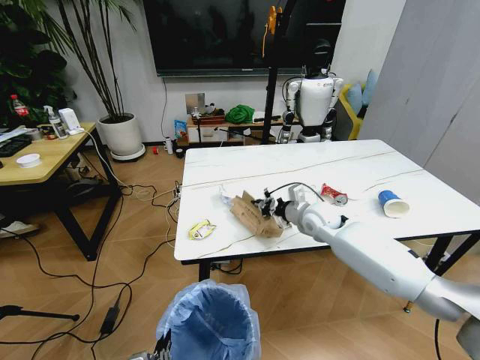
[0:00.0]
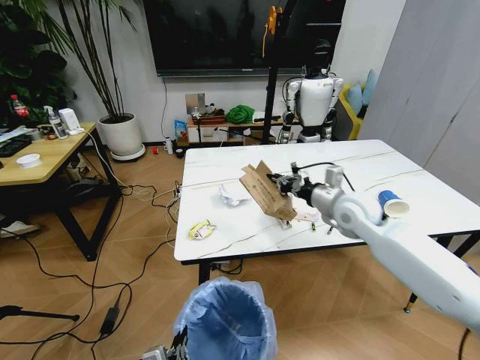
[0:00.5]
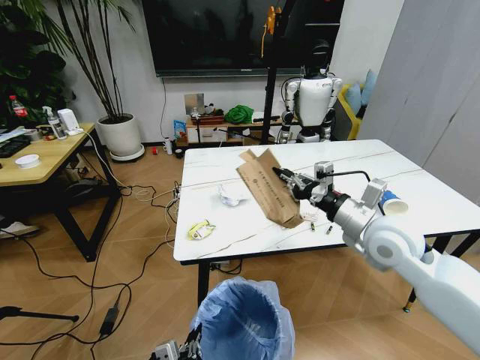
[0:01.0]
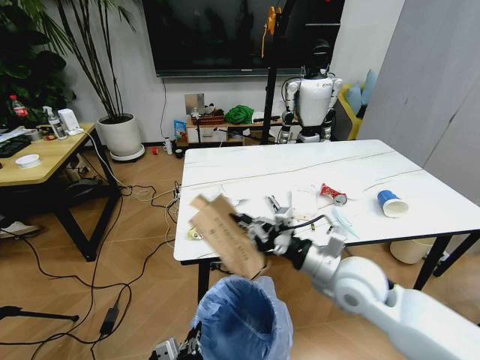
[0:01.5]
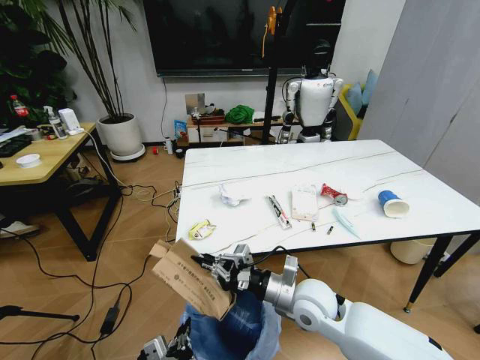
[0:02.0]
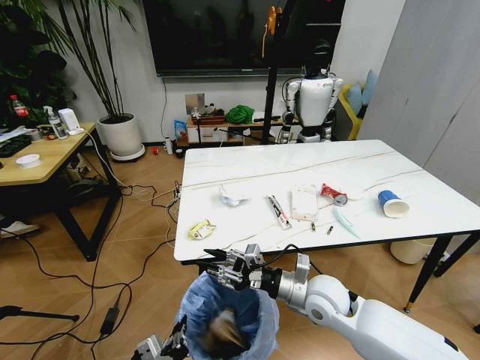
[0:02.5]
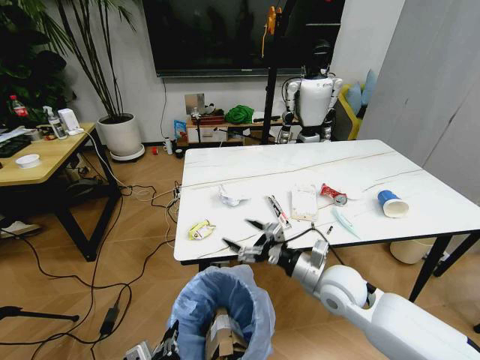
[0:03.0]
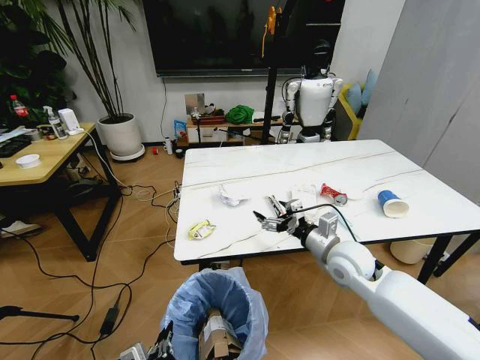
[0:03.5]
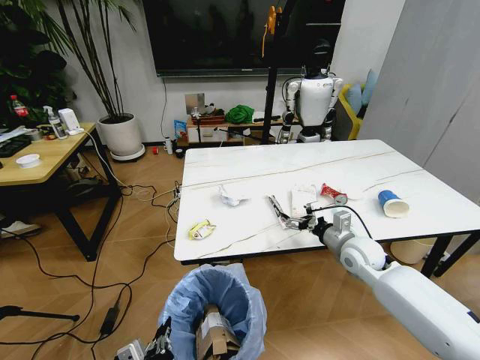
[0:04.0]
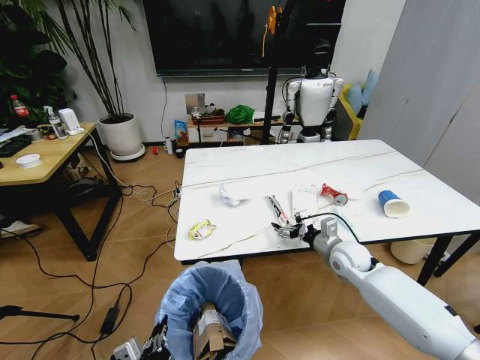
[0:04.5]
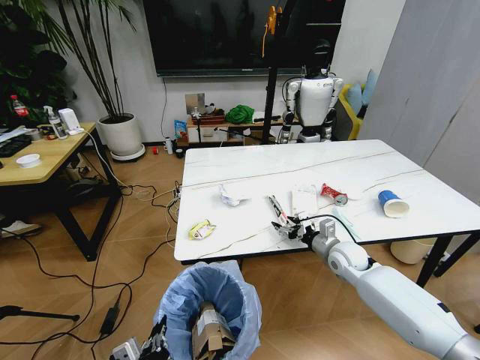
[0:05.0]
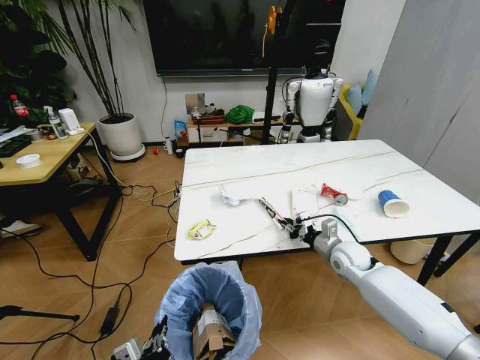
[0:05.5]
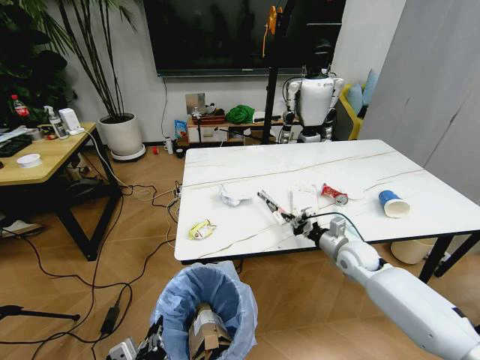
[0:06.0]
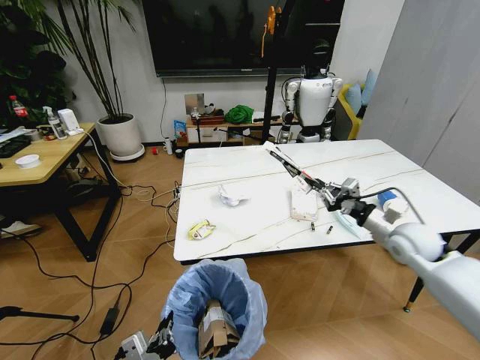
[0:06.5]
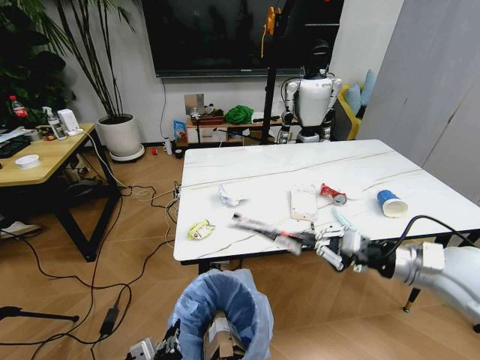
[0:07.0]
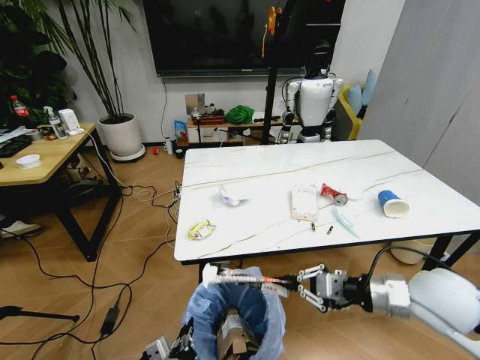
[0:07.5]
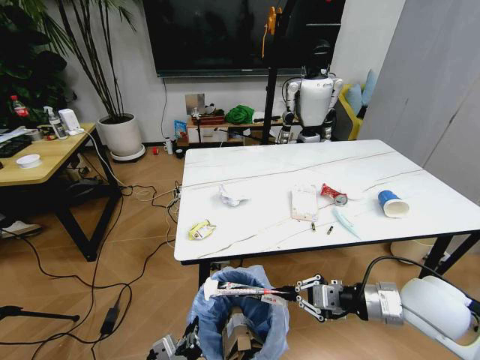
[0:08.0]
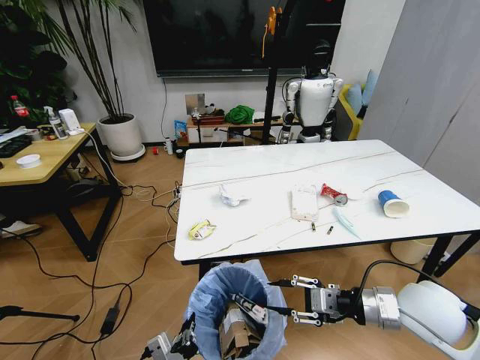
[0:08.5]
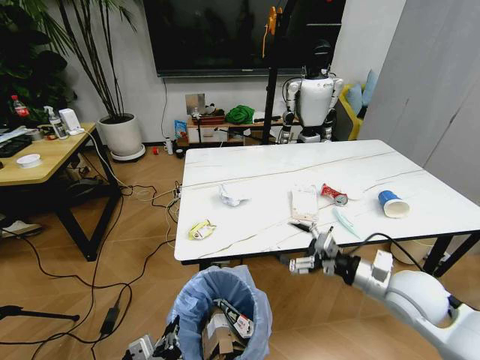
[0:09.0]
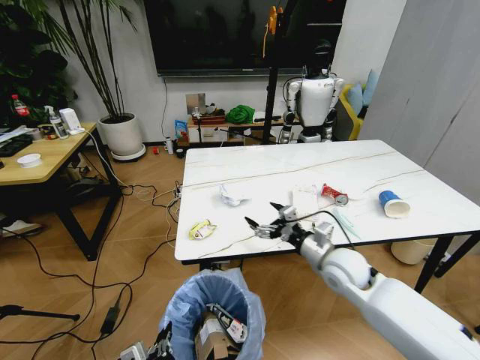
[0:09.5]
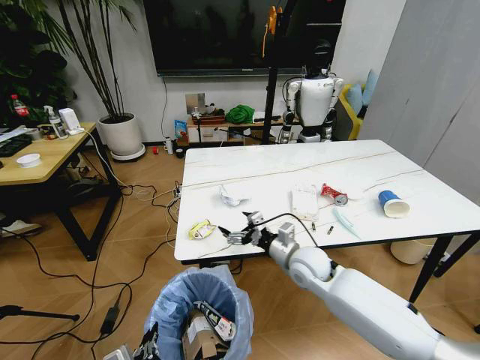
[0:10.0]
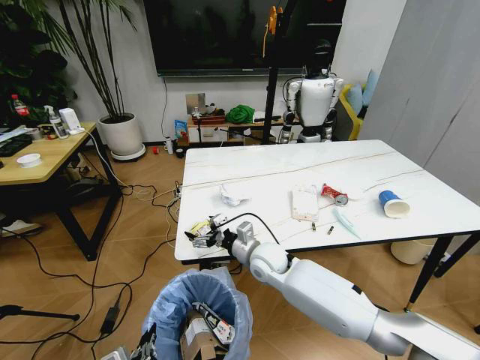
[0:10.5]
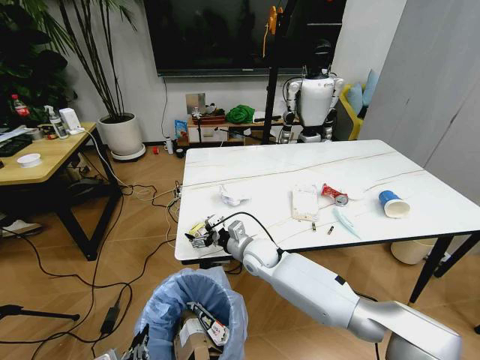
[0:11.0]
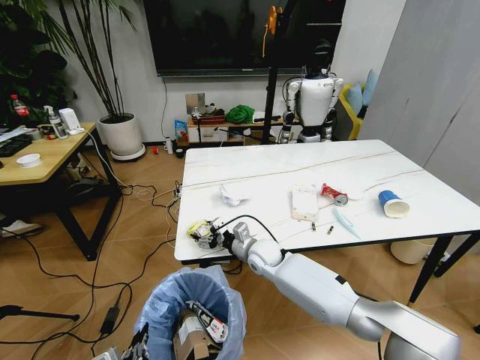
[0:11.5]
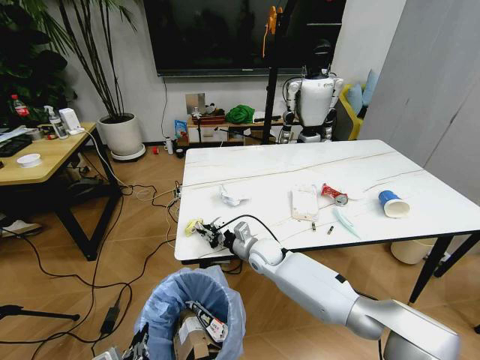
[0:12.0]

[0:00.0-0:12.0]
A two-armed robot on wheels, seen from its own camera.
Task of the whole recording: Pick up the trash bin and place the trash from the table into it.
0:00.0 to 0:02.0: The right gripper travels backward by approximately 20 cm.
0:02.0 to 0:04.0: The right gripper moves to the right and forward, approximately 20 cm, and opens up.
0:04.0 to 0:06.0: The right gripper closes up.
0:06.0 to 0:08.0: The left gripper moves roughly 5 cm. Meanwhile the right gripper travels backward and upward by about 20 cm.
0:08.0 to 0:10.0: The right gripper moves to the left, forward and downward, roughly 25 cm, and opens. The left gripper heads to the left, covering approximately 5 cm.
0:10.0 to 0:12.0: The right gripper is displaced to the left, forward and downward by approximately 10 cm, and closes.

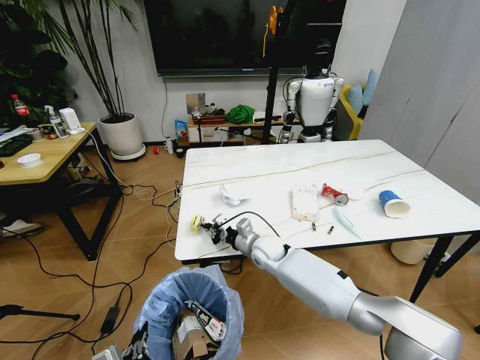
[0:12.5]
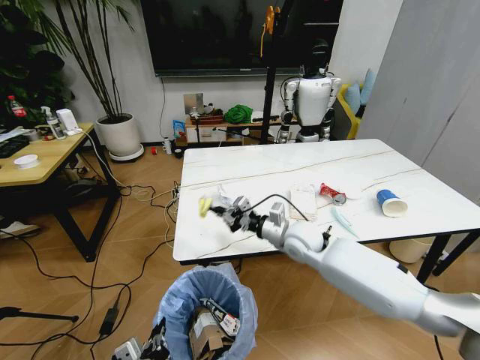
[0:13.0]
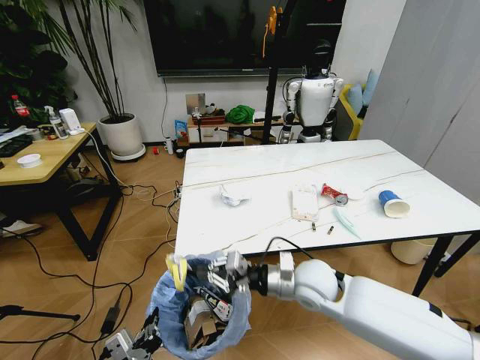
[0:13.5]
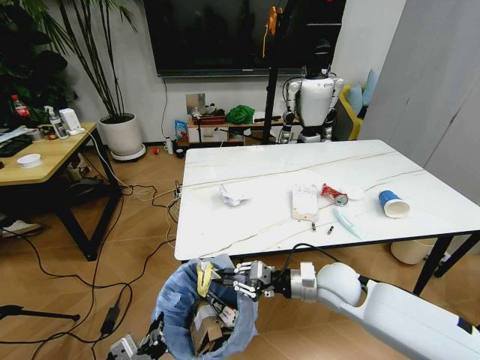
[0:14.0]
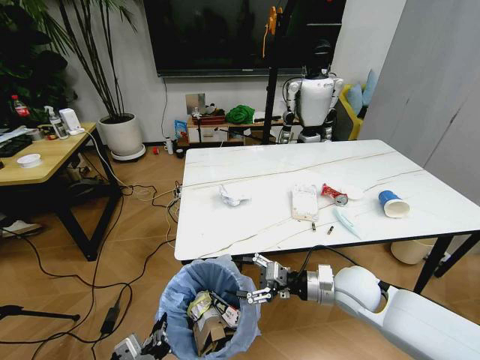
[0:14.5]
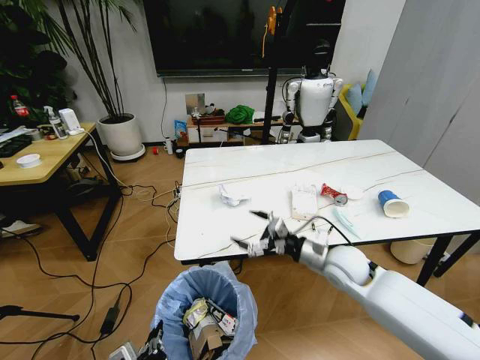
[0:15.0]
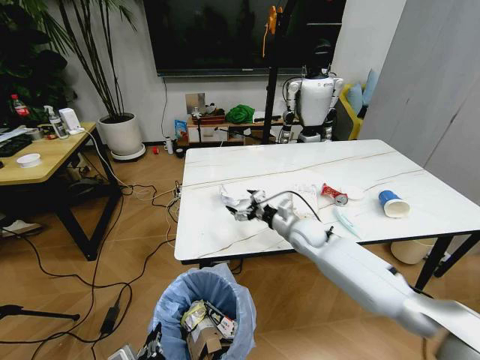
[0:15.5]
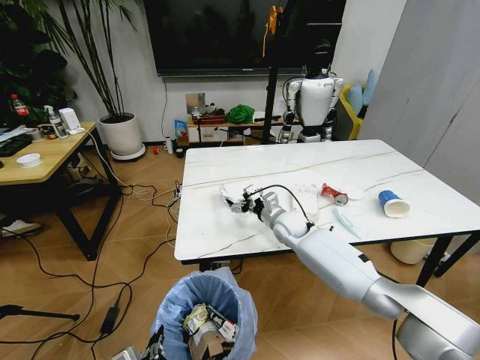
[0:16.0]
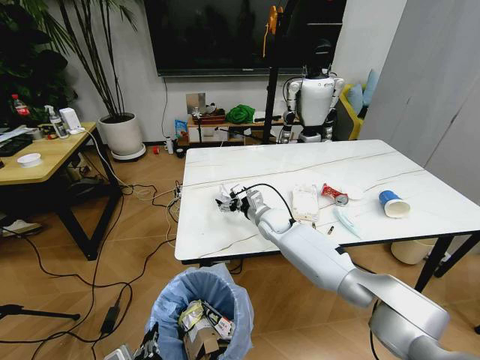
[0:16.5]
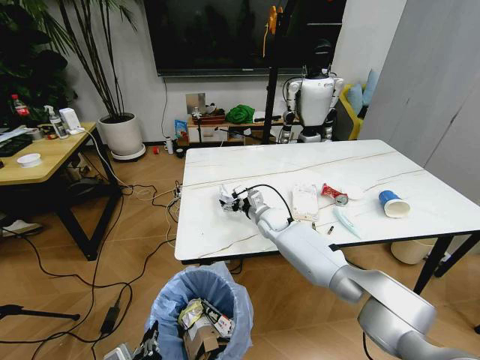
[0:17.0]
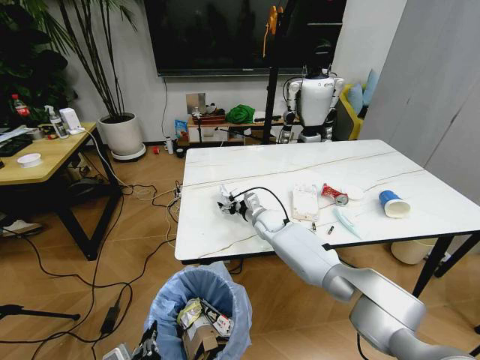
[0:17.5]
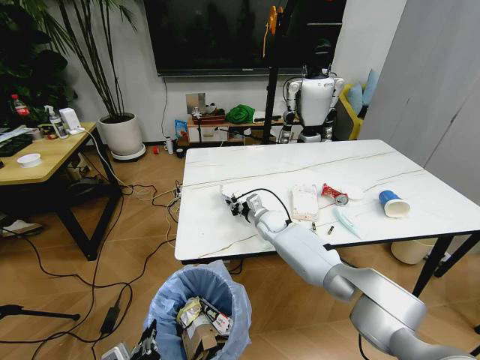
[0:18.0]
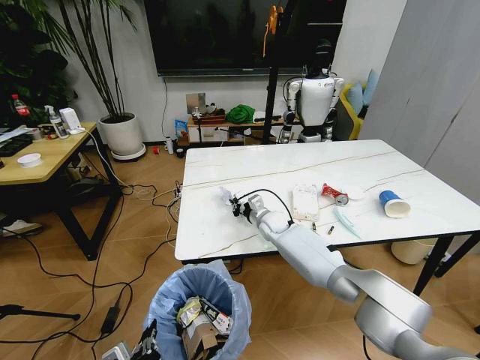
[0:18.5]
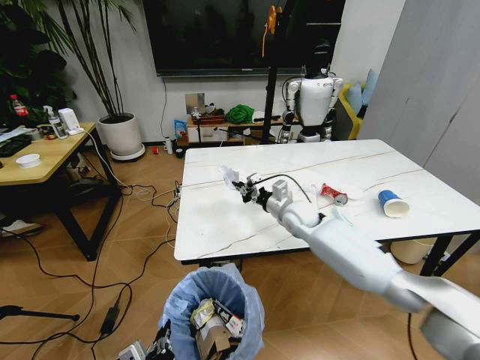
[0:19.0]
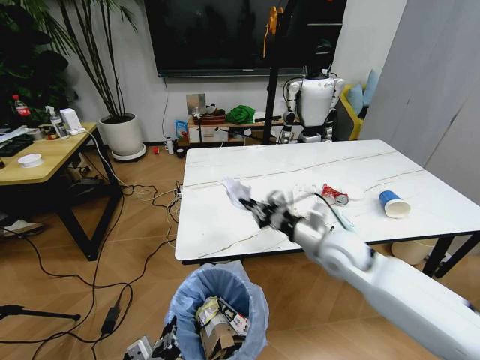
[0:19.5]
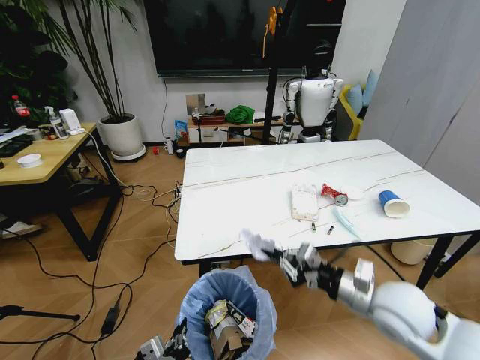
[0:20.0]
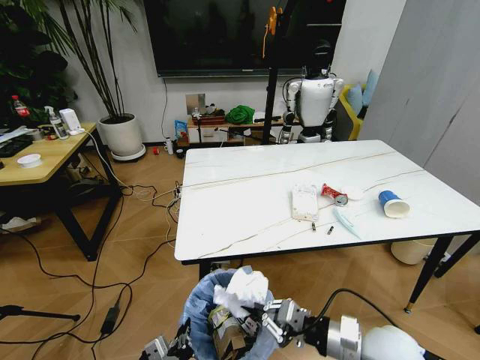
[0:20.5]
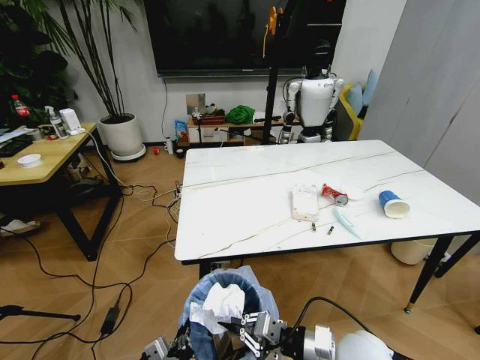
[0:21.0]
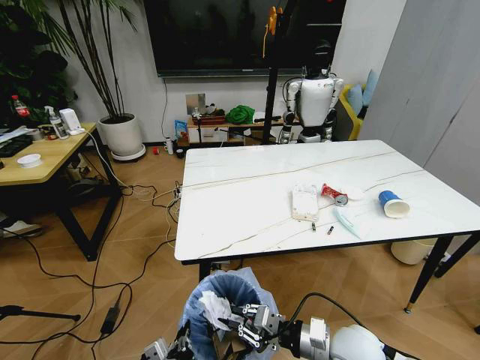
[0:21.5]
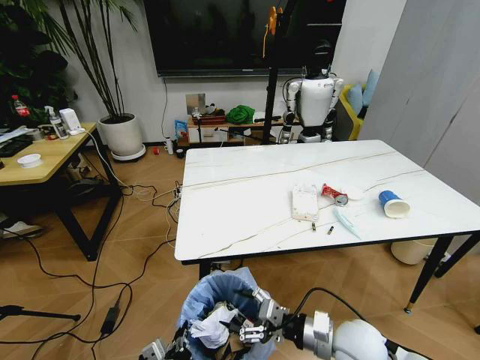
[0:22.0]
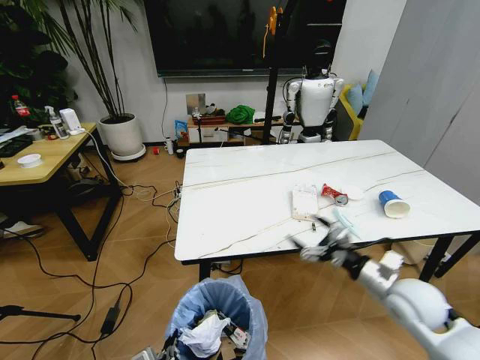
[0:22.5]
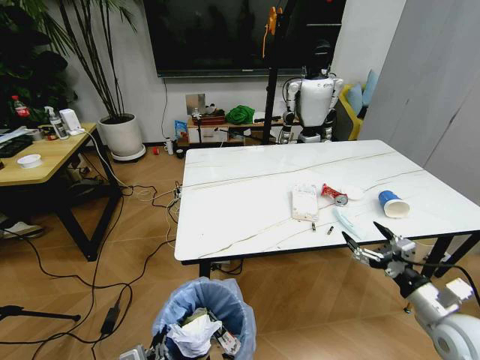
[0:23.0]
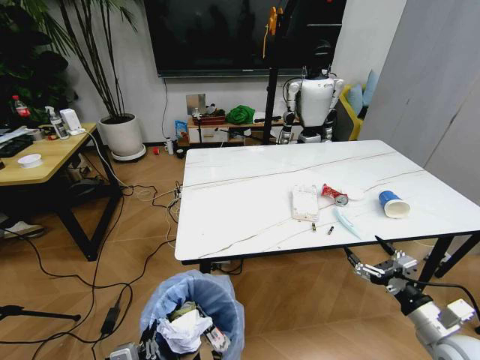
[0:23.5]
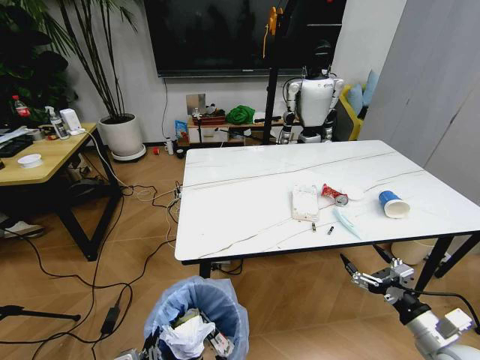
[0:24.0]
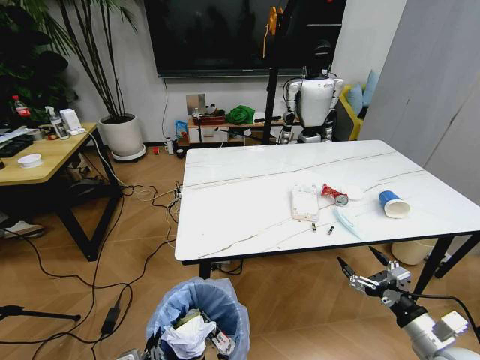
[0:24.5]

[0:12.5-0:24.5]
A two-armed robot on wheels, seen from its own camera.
Task of the whole recording: Pick up the trash bin and place the trash from the table into it.
0:12.5 to 0:14.5: The right gripper shifts approximately 25 cm to the right and backward, and opens its fingers.
0:14.5 to 0:16.5: The right gripper goes some 25 cm forward and to the left.
0:16.5 to 0:18.5: The right gripper closes its fingers.
0:18.5 to 0:20.5: The right gripper heads backward and to the right, covering about 40 cm; the left gripper heads downward, covering about 5 cm.
0:20.5 to 0:22.5: The right gripper shifts roughly 10 cm forward and to the right, and opens its fingers.
0:22.5 to 0:24.5: The right gripper heads backward, to the right and downward, covering approximately 15 cm.

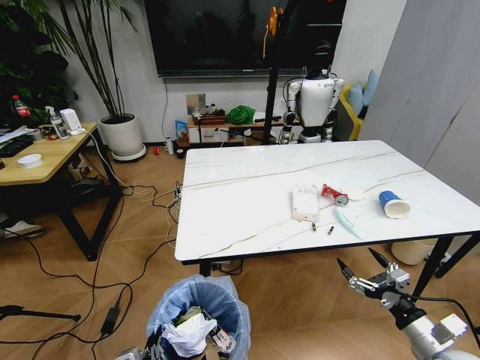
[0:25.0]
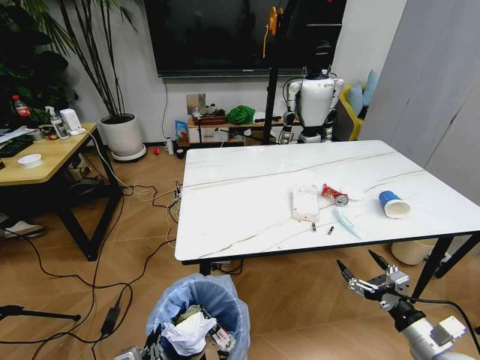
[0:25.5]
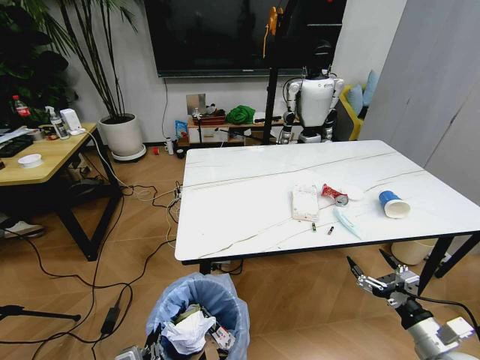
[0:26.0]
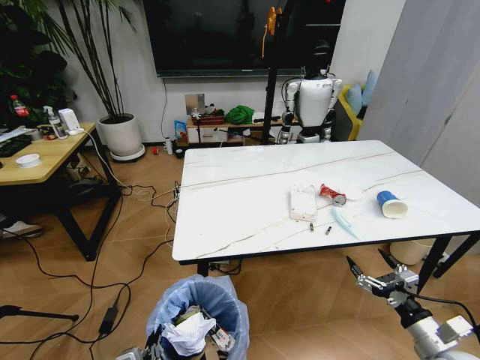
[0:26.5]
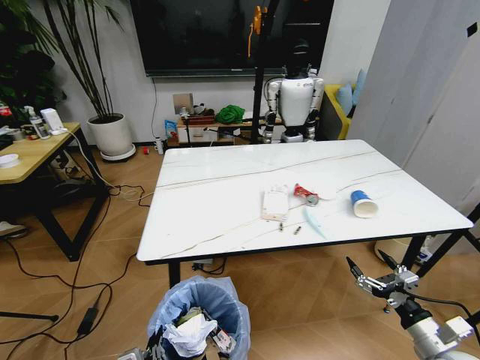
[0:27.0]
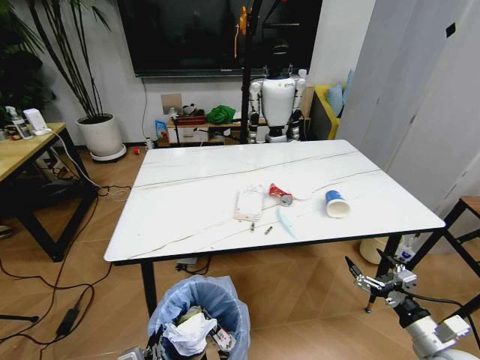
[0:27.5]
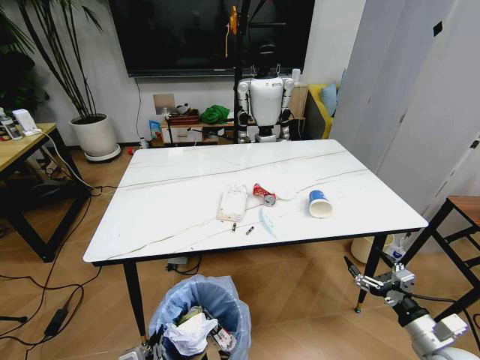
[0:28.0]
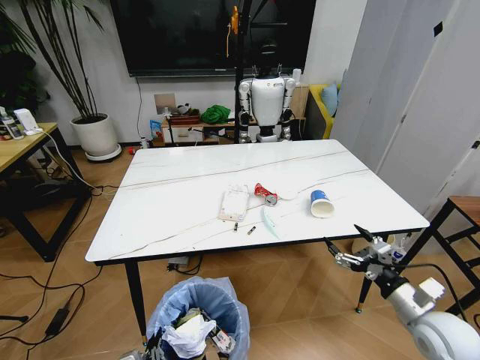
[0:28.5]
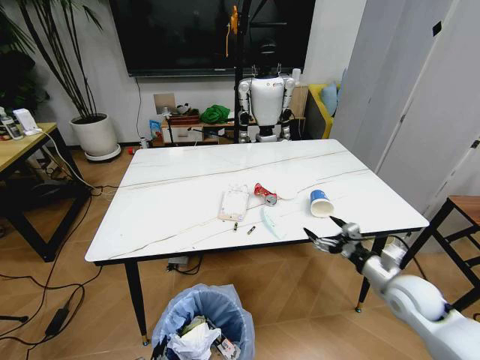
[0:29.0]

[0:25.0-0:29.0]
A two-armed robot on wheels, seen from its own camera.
Task of the whole recording: Pick up the trash bin and place the trash from the table into it.
0:27.0 to 0:29.0: The right gripper is displaced forward, upward and to the left by approximately 15 cm.
